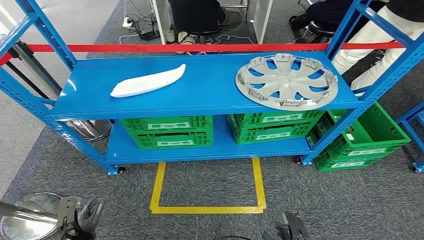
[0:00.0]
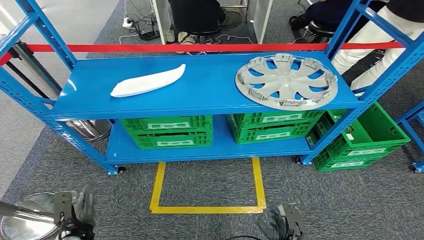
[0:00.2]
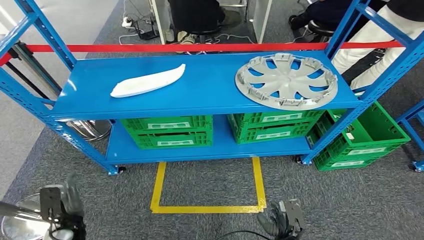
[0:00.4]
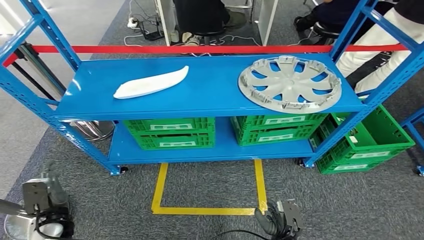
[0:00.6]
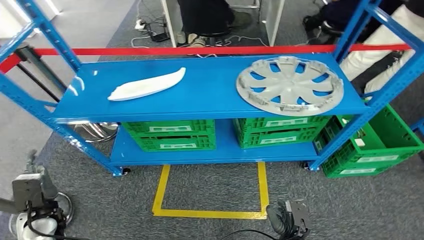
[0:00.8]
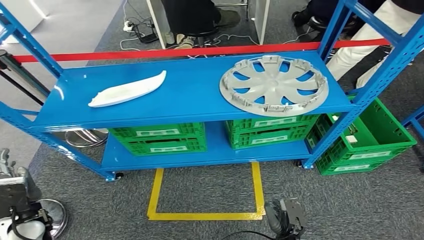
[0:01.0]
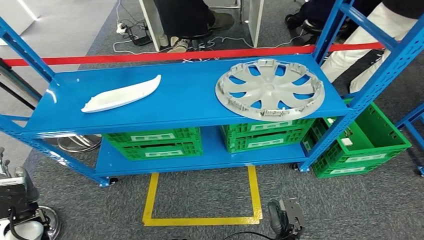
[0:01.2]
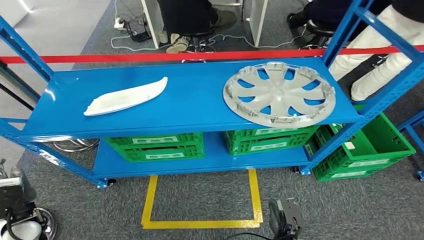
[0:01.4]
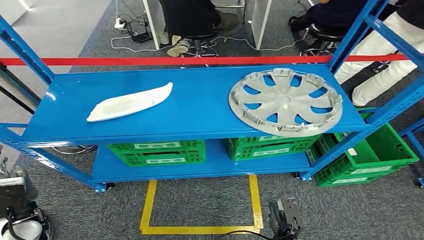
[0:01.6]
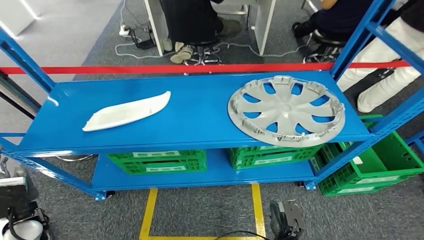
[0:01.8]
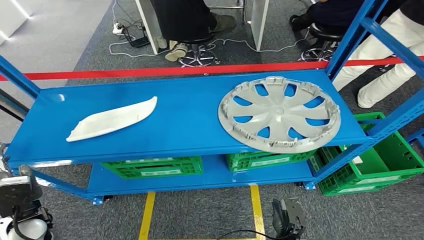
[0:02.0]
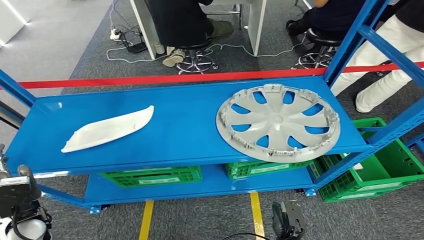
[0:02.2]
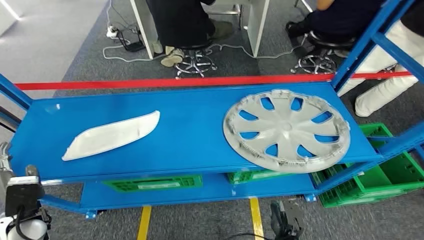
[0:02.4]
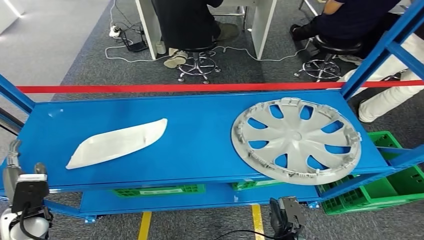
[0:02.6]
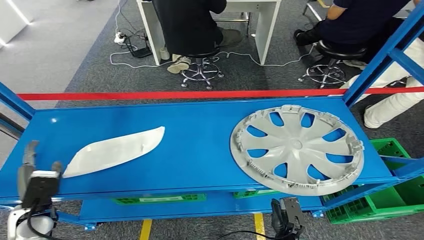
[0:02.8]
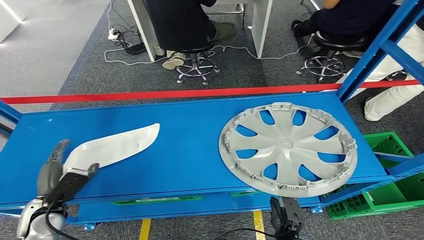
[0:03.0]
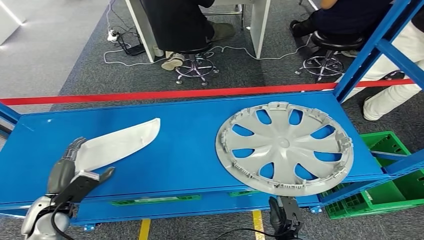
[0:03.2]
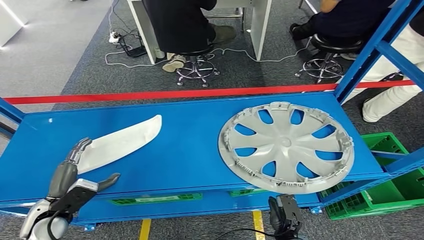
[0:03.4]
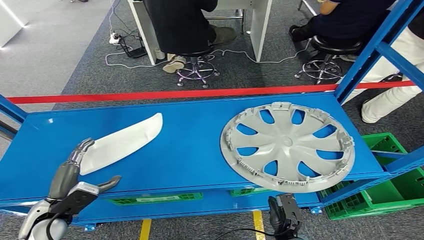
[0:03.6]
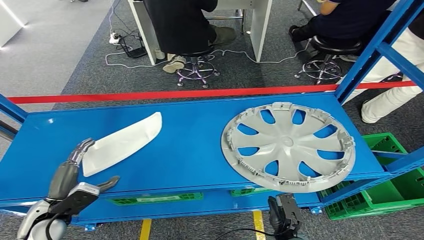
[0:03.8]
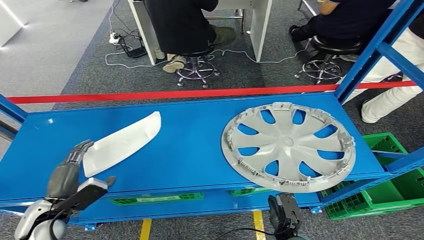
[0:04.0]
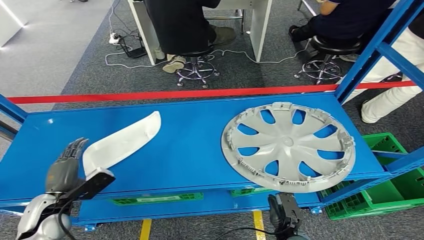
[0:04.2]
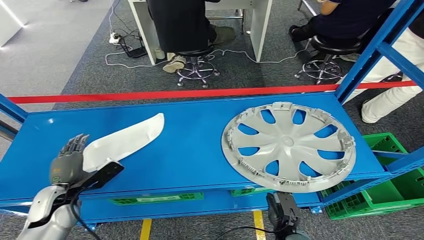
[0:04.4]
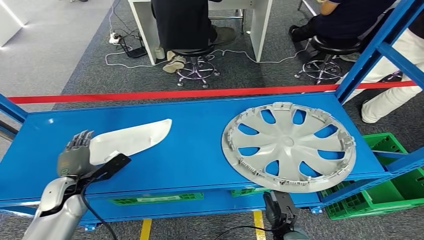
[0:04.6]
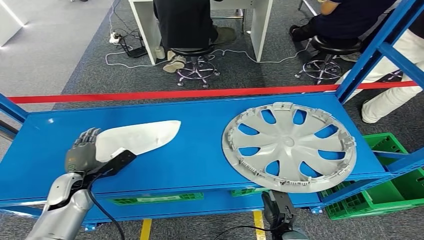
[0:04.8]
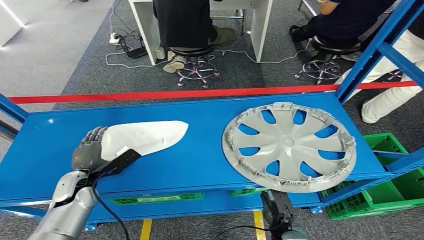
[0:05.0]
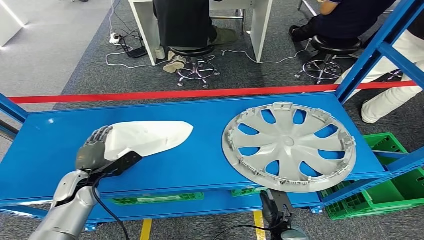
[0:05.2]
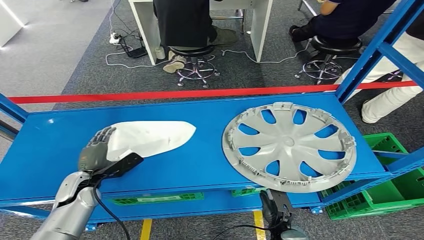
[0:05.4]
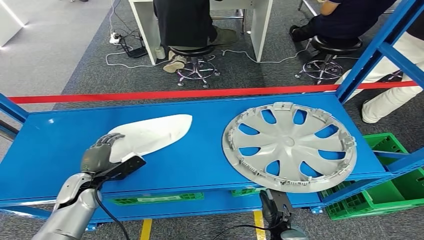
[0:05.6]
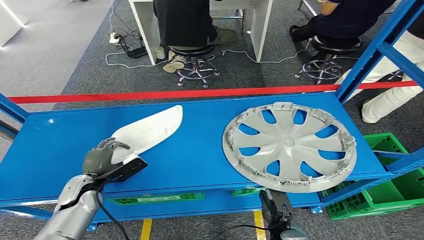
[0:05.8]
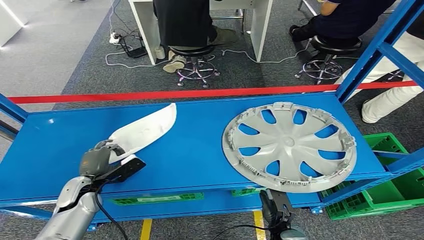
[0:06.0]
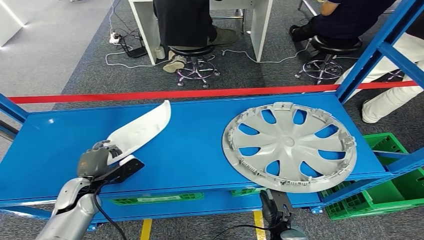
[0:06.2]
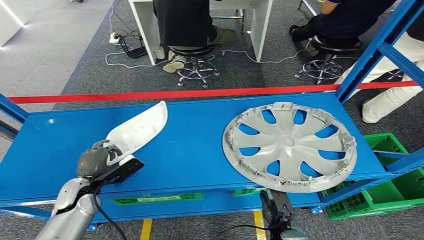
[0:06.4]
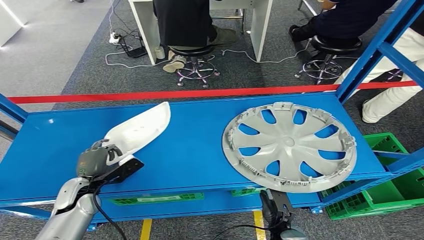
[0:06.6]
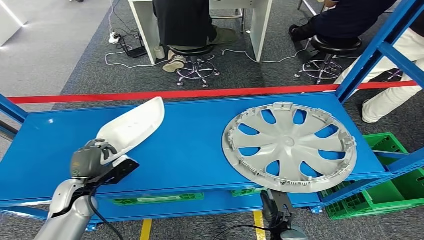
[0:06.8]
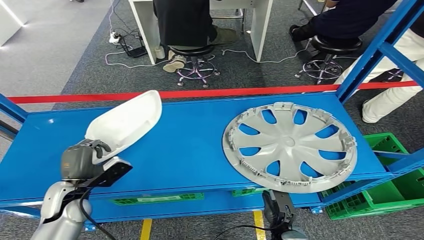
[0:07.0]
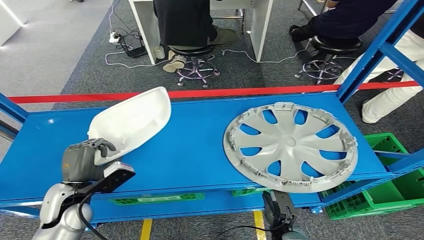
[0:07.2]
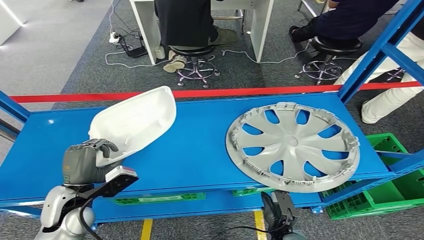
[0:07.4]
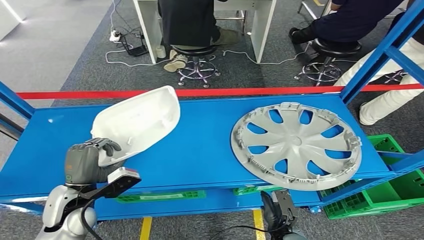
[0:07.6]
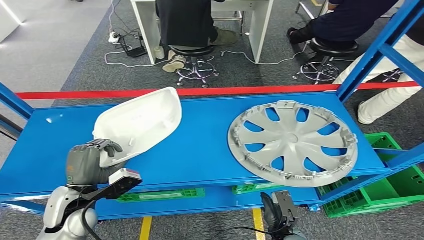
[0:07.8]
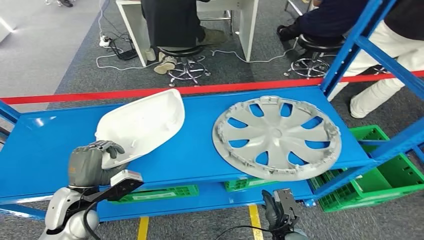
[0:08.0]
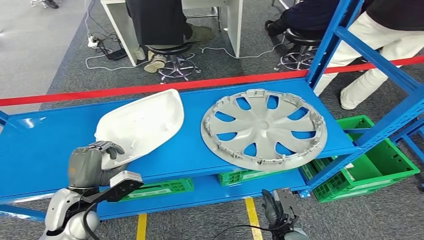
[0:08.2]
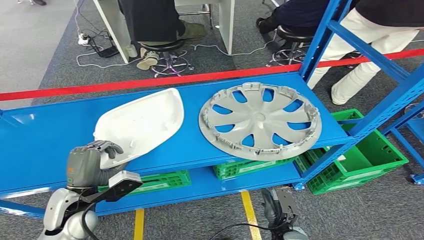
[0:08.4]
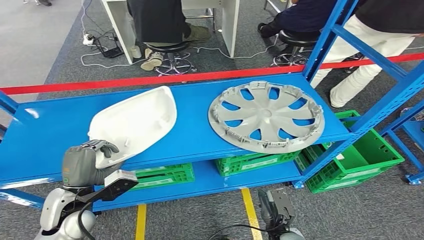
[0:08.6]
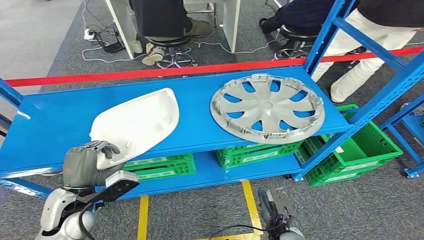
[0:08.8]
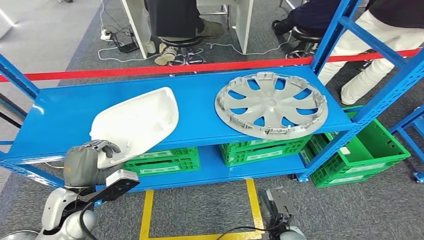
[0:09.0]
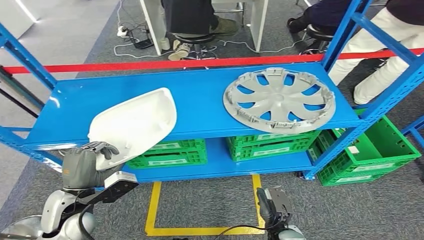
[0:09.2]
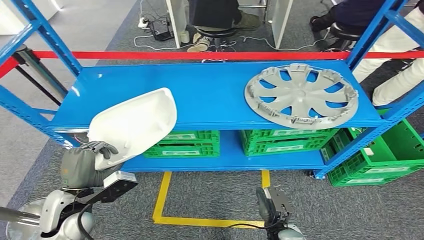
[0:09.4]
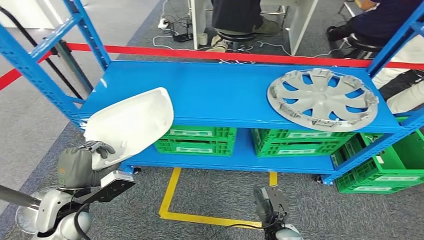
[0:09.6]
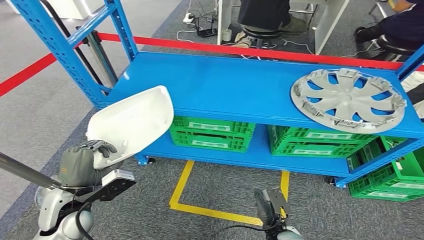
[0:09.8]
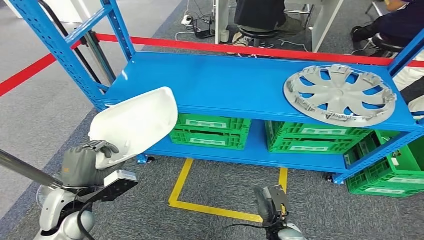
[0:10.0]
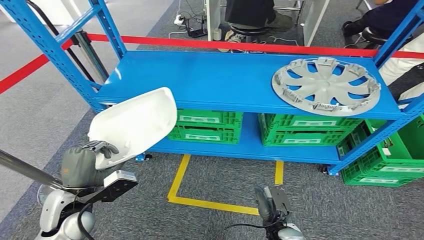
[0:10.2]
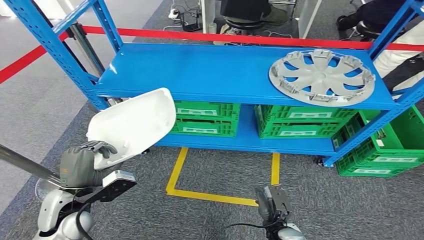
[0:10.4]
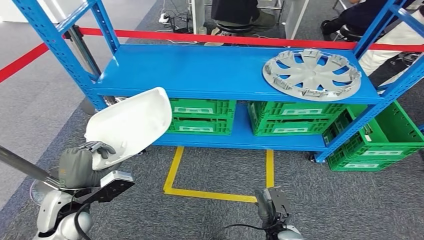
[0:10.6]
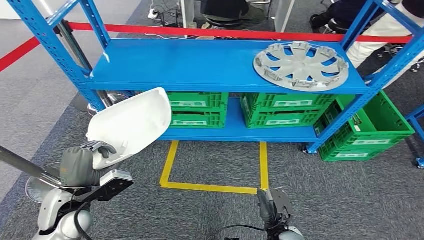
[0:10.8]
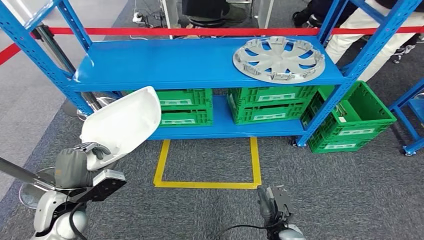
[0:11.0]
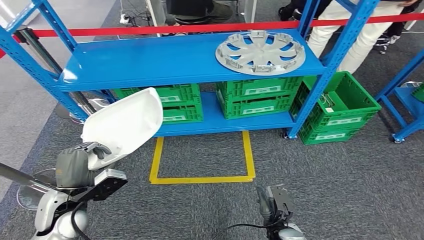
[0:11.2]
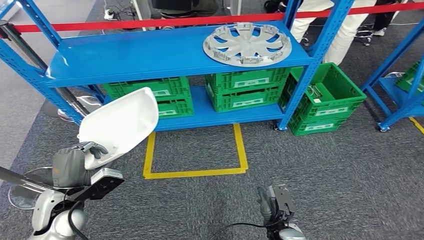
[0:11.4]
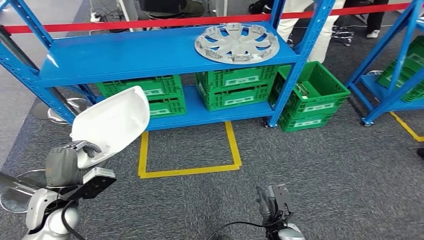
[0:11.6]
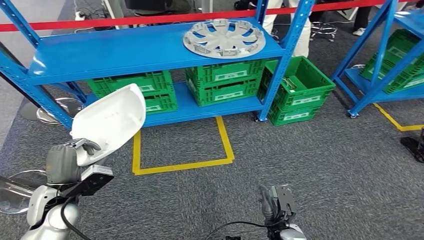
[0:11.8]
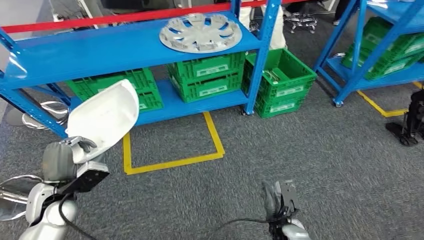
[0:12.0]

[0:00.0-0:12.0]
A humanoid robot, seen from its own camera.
Step, 0:00.0 to 0:08.6: Pick up the small component from the shelf.
0:04.4 to 0:06.0: The hands stay close to where they were, moving slightly.

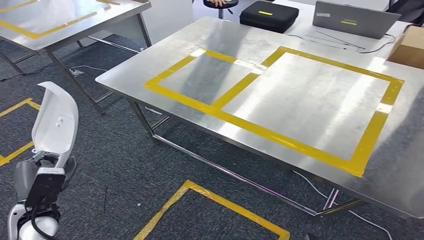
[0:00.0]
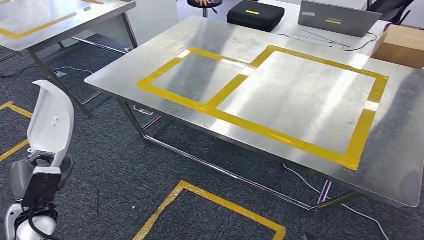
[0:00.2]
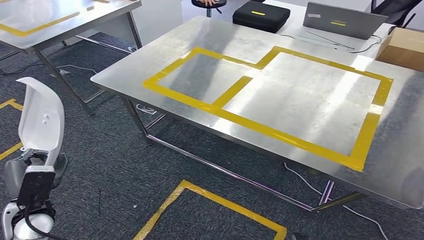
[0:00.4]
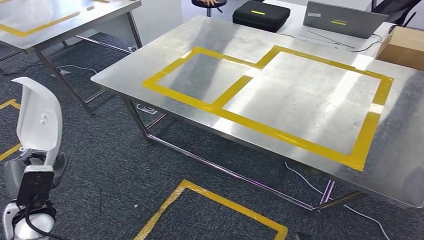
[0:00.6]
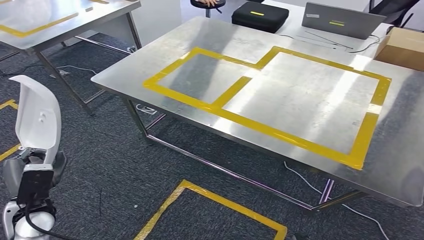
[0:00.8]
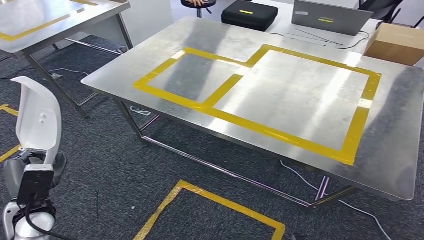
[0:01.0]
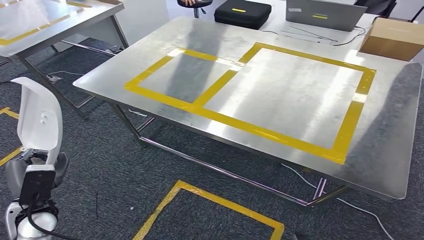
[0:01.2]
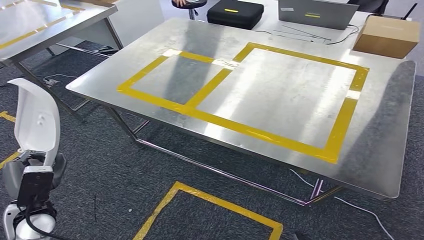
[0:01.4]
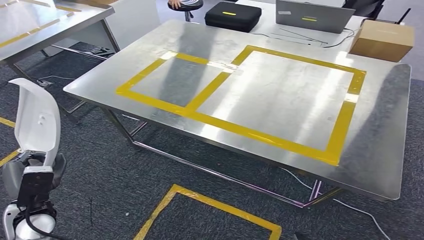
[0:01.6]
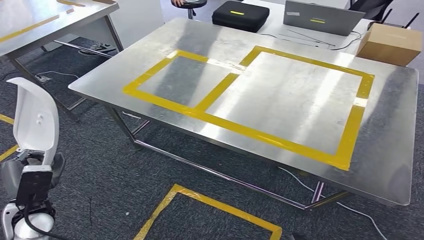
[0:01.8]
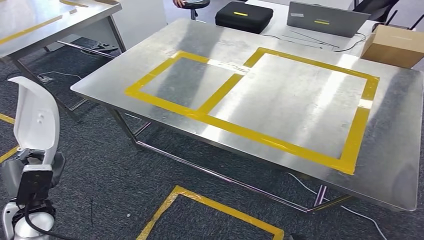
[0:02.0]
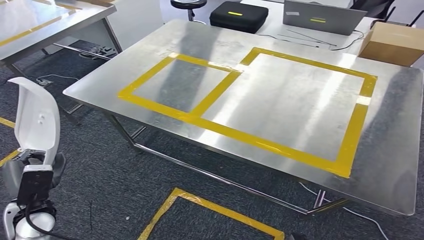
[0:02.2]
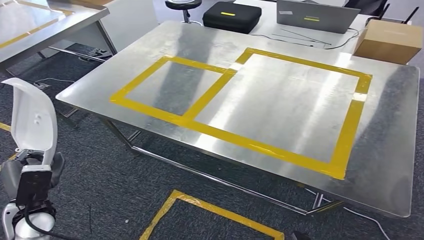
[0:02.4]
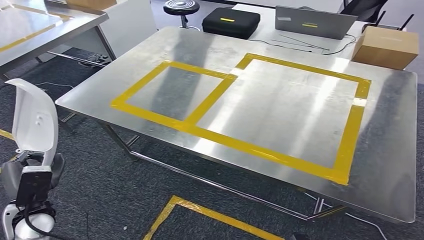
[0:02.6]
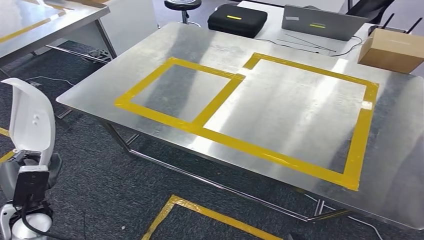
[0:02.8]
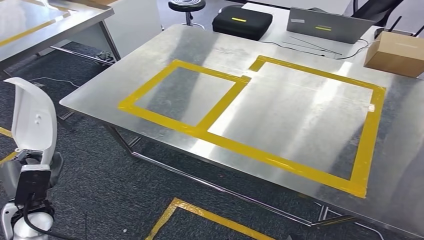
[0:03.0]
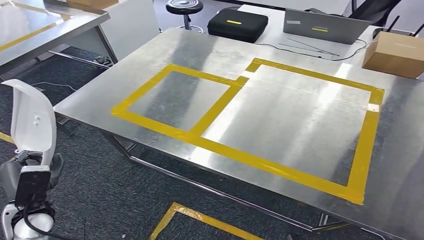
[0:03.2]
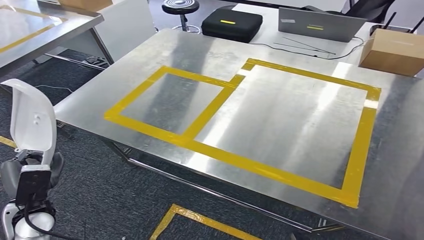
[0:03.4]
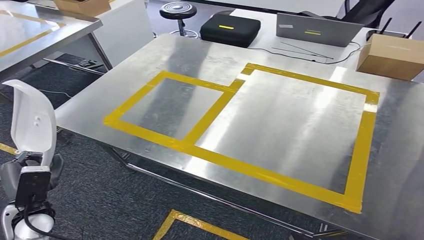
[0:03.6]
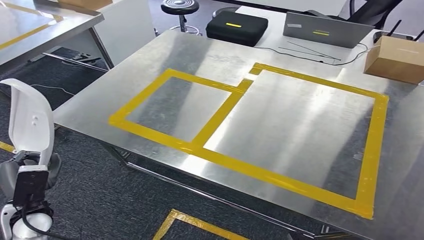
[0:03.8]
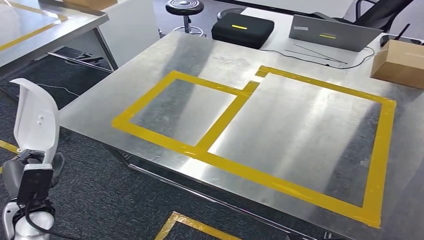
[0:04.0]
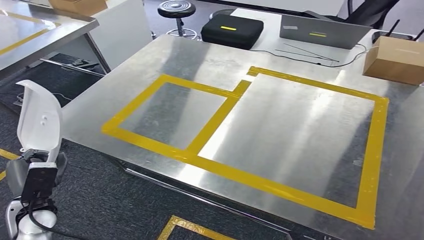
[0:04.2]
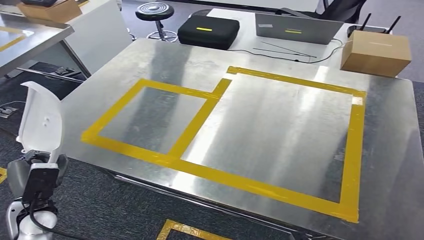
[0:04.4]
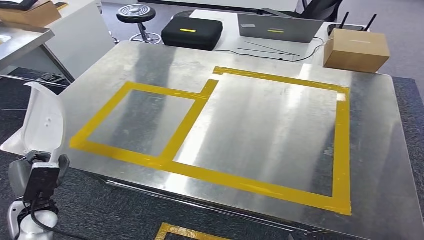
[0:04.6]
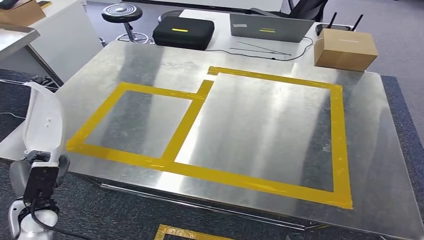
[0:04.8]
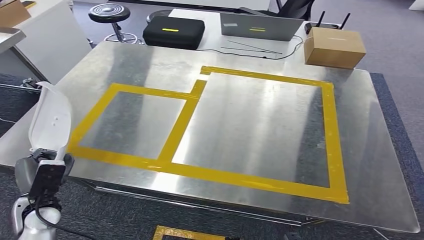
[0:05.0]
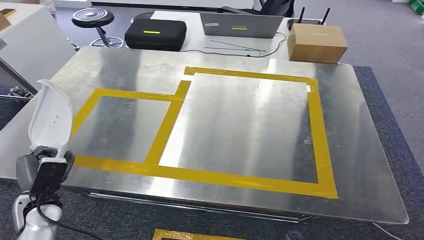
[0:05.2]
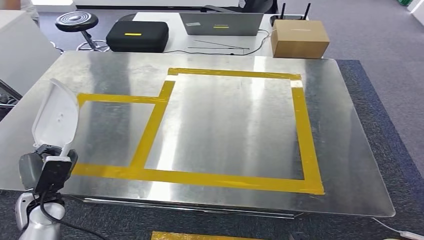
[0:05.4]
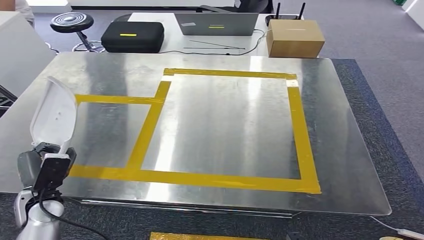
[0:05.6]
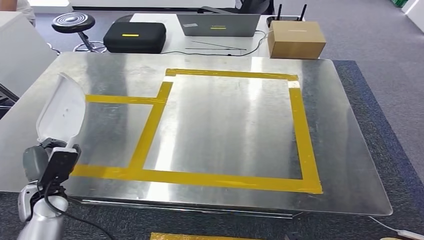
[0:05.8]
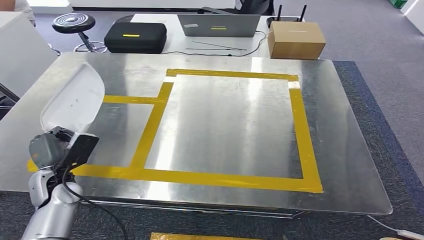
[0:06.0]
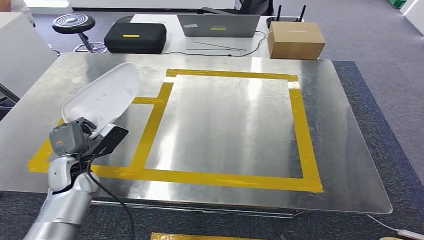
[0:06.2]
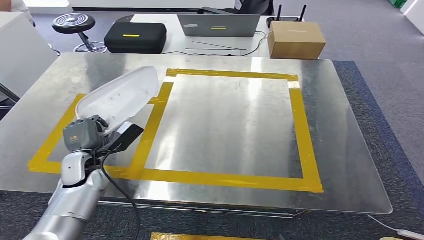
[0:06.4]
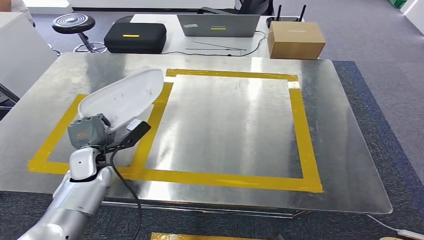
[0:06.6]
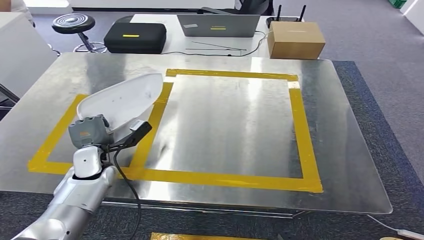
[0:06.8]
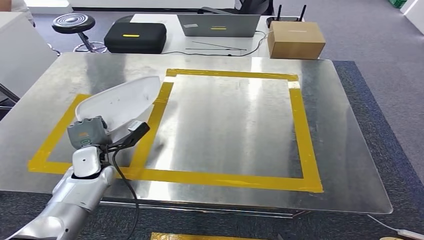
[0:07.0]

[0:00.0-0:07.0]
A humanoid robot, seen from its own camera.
Step, 0:00.0 to 0:05.0: Move the small component to the workbench.
